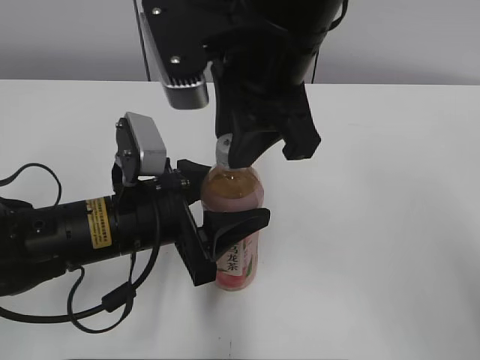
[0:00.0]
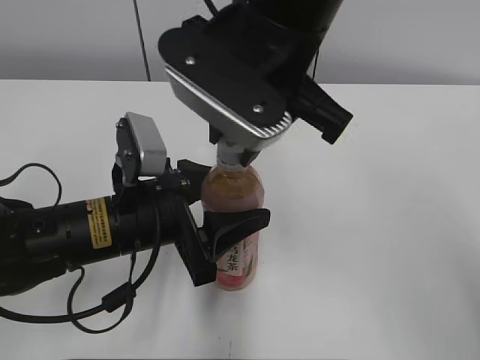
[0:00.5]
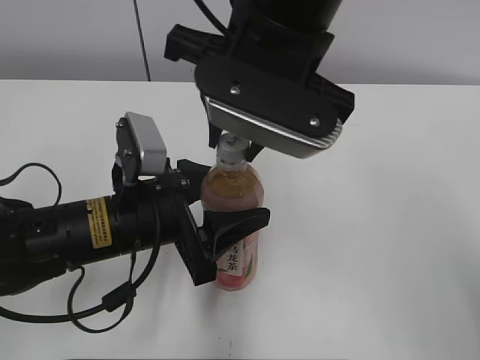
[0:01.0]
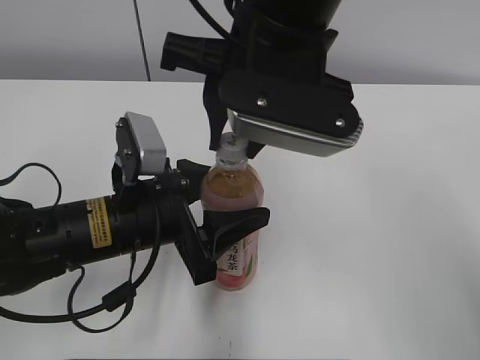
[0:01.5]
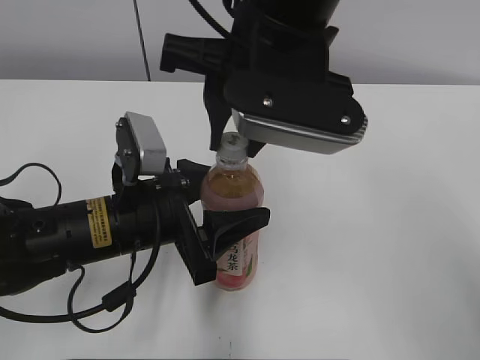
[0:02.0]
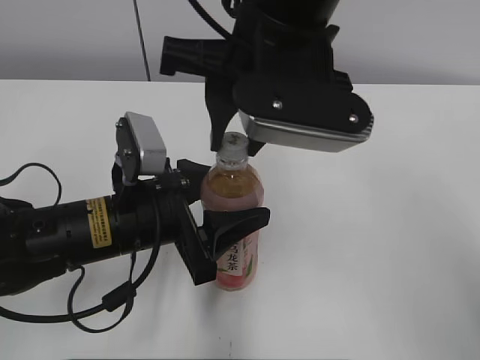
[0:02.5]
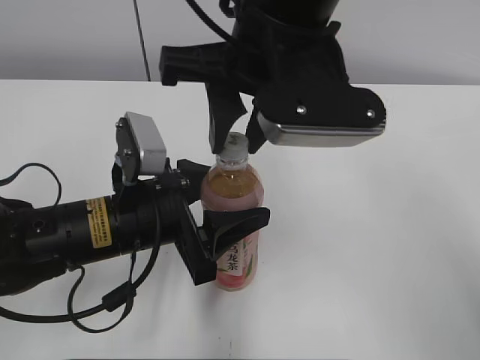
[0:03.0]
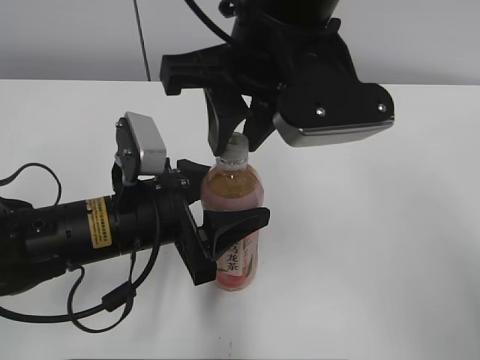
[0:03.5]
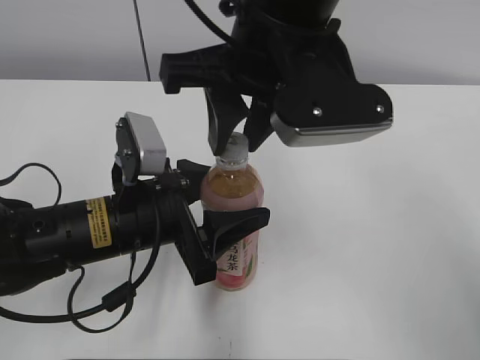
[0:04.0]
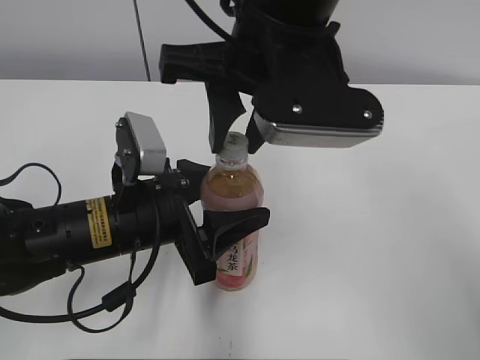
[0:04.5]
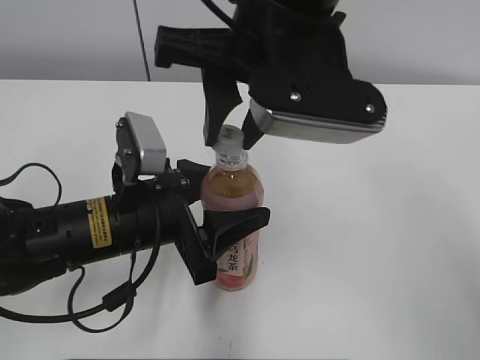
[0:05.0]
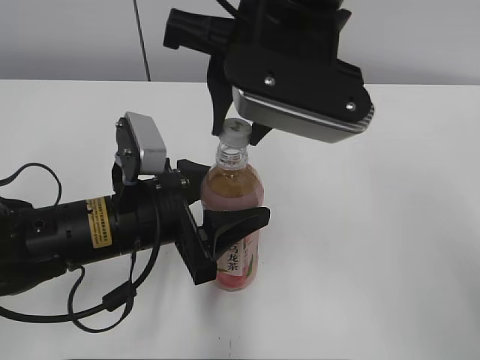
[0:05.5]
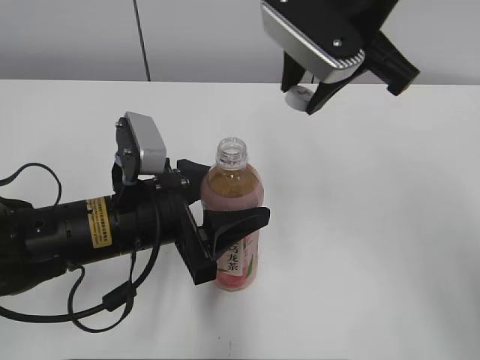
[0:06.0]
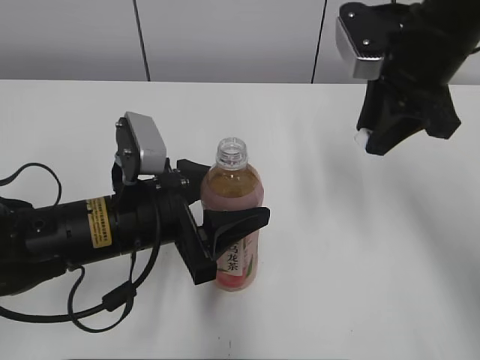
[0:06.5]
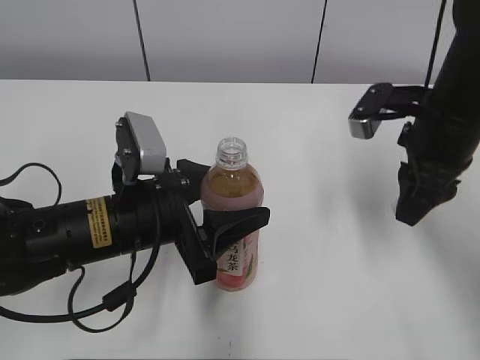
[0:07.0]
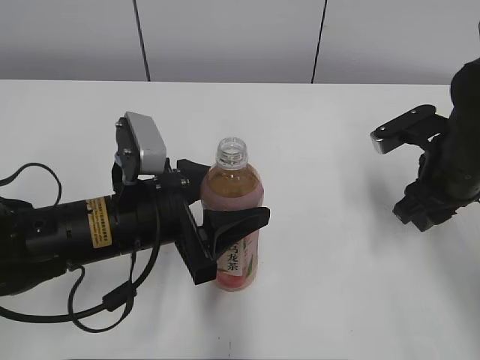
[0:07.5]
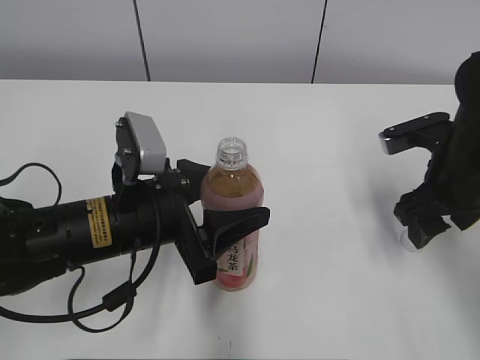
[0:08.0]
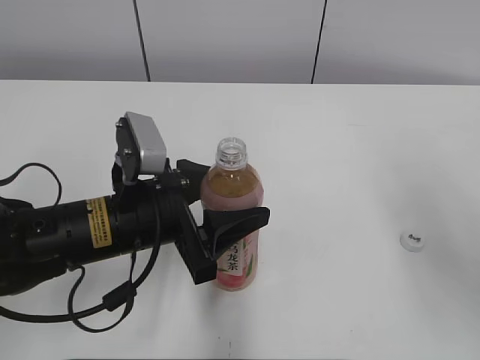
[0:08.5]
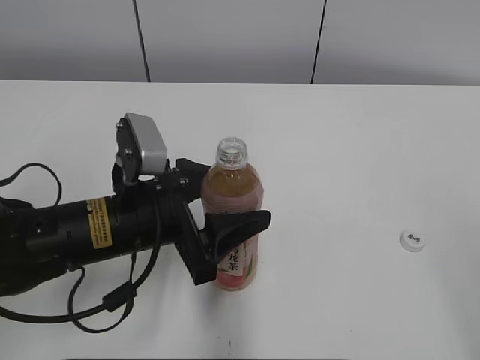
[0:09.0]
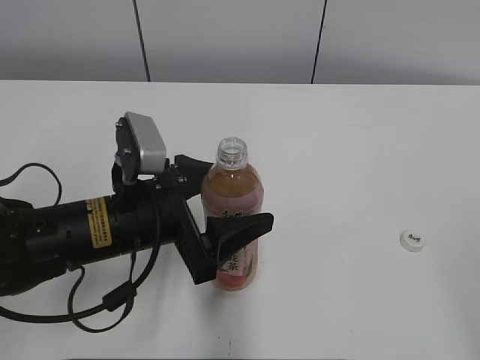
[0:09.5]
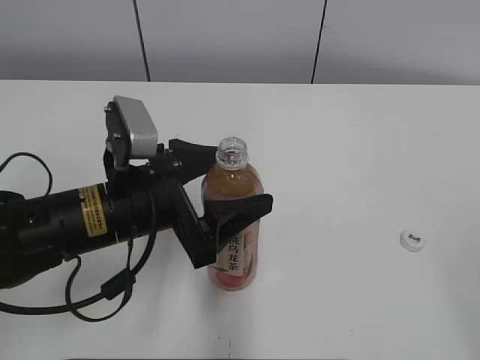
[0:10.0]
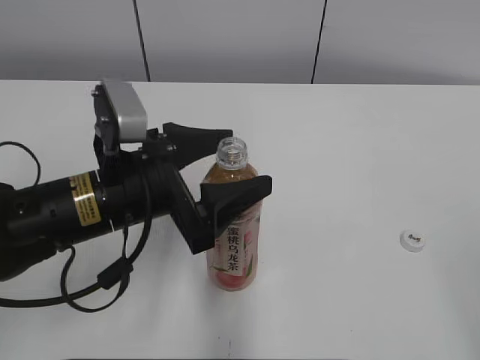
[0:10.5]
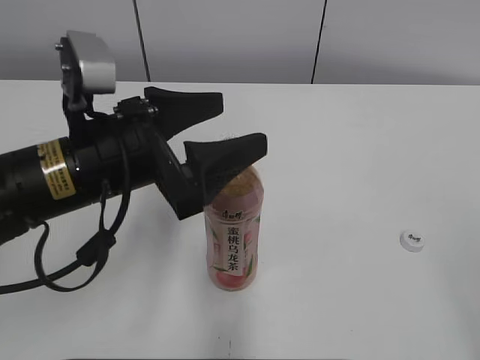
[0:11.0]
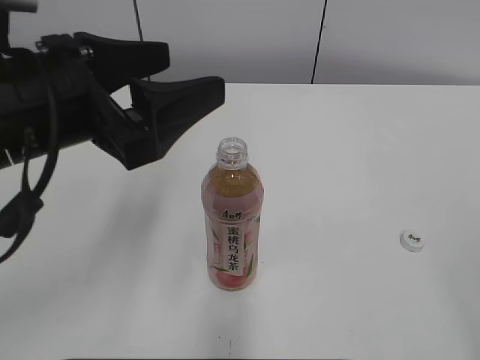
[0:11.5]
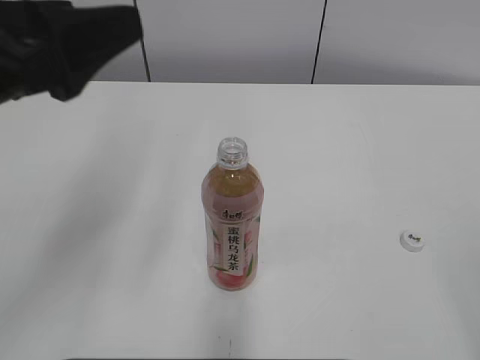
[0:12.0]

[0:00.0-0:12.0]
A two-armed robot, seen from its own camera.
Step, 0:06.0 to 0:07.5: Place the bottle cap on the right.
0:04.0 to 0:06.0: The right gripper heads to the right, covering about 5 cm.
0:06.0 to 0:08.0: The right gripper travels downward and to the right by roughly 20 cm, and opens up.
0:08.0 to 0:10.0: The right gripper is displaced backward and upward by roughly 30 cm, while the left gripper opens.
0:10.0 to 0:12.0: The left gripper heads upward and to the left, covering approximately 20 cm.

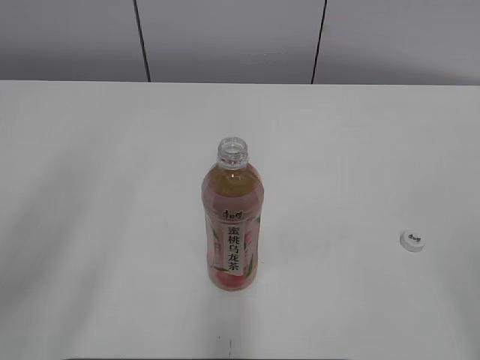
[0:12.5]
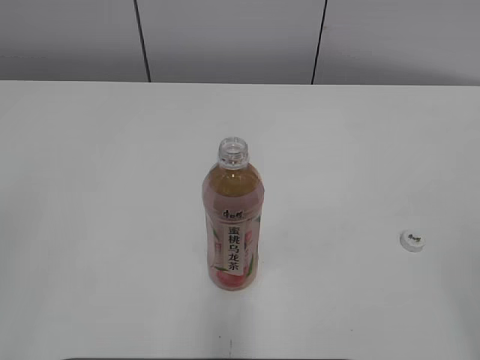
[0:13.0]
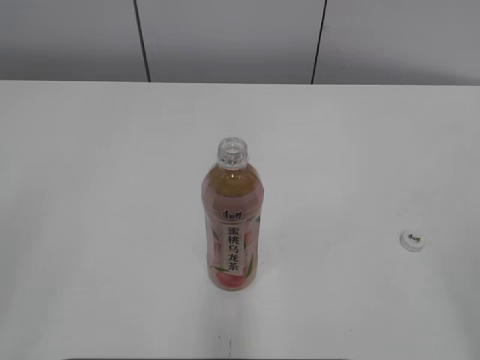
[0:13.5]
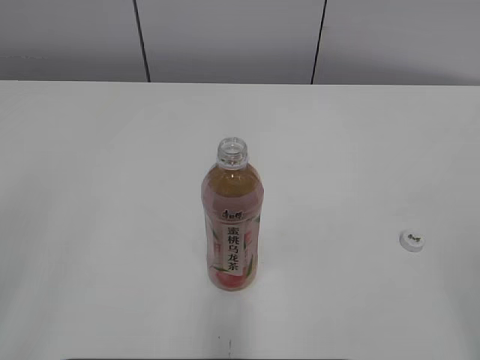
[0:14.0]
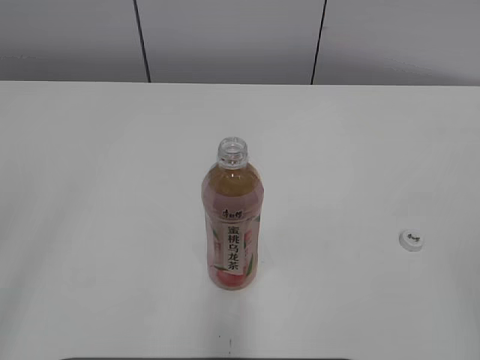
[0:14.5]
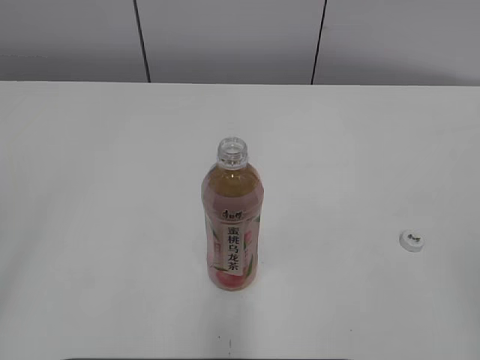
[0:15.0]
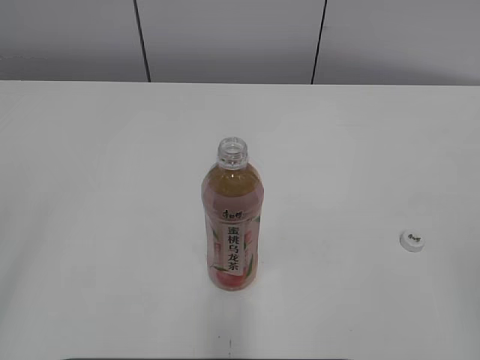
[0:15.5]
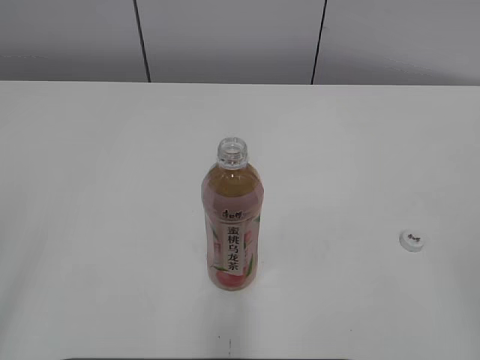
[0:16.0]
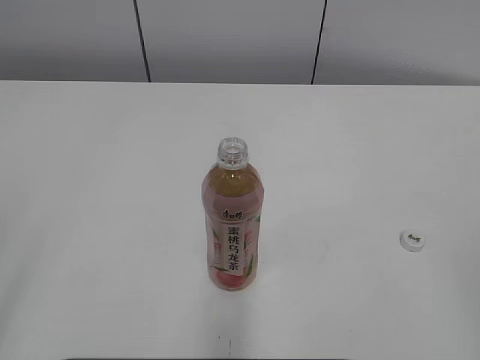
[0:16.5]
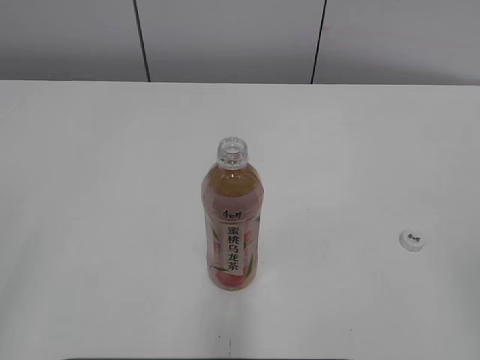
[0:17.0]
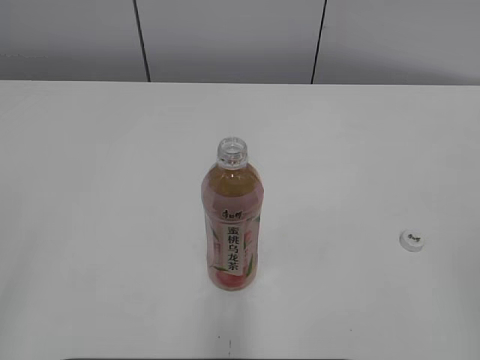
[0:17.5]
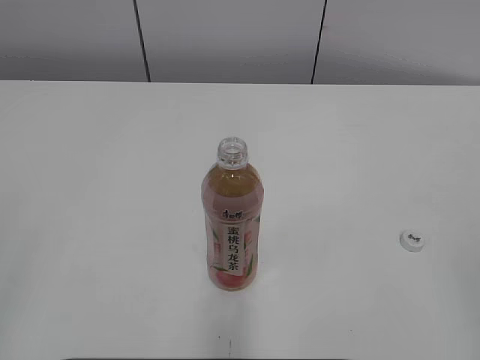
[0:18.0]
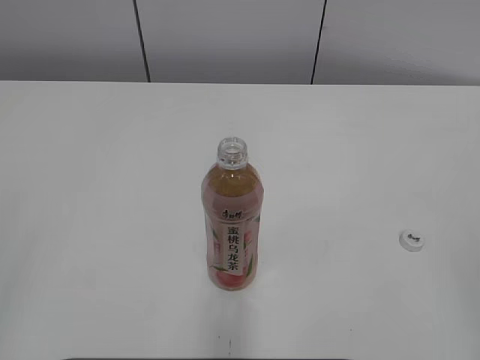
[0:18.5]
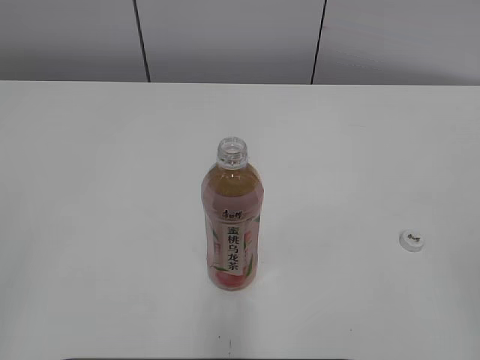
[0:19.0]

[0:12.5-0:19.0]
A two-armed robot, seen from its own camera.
0:12.5 to 0:14.5: The left gripper shifts some 10 cm backward and to the left.
0:17.0 to 0:19.0: Neither gripper changes place.
